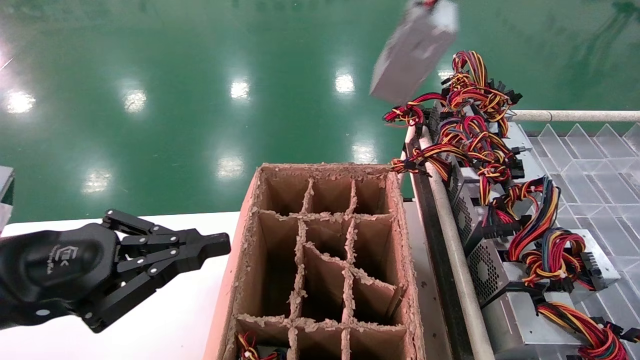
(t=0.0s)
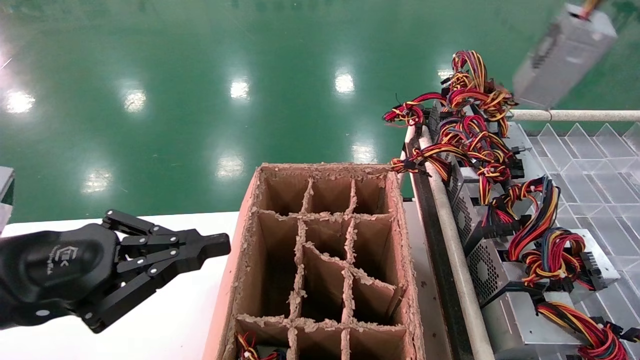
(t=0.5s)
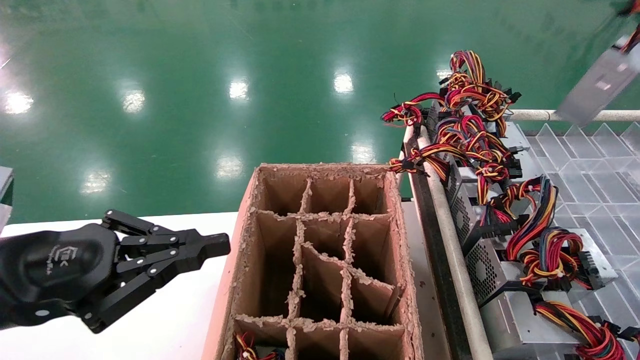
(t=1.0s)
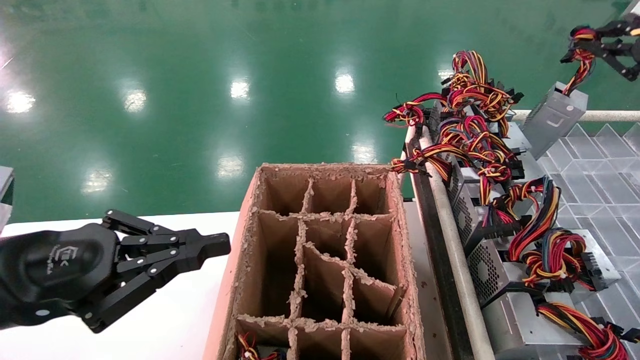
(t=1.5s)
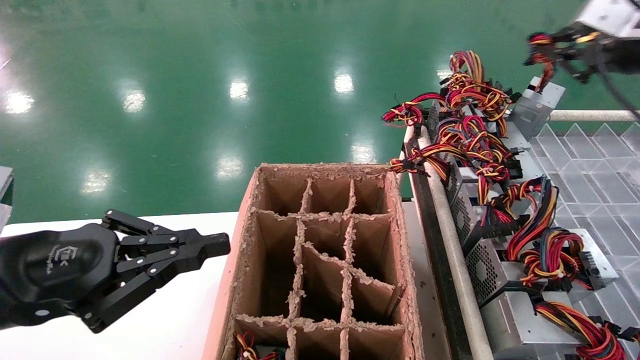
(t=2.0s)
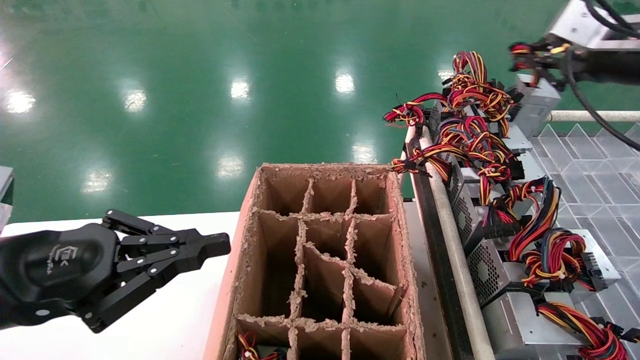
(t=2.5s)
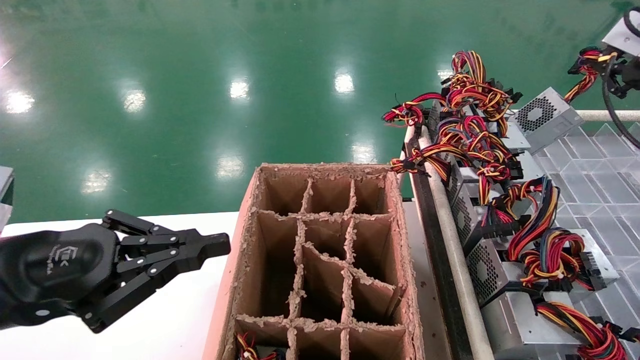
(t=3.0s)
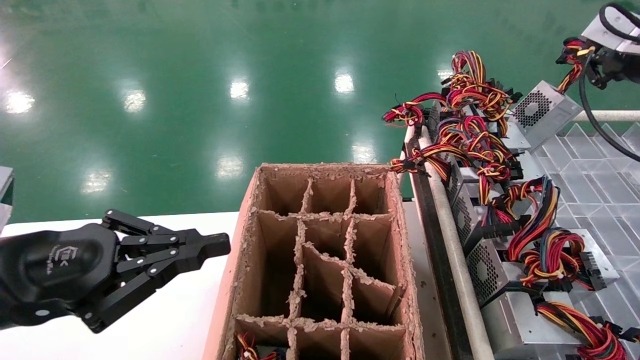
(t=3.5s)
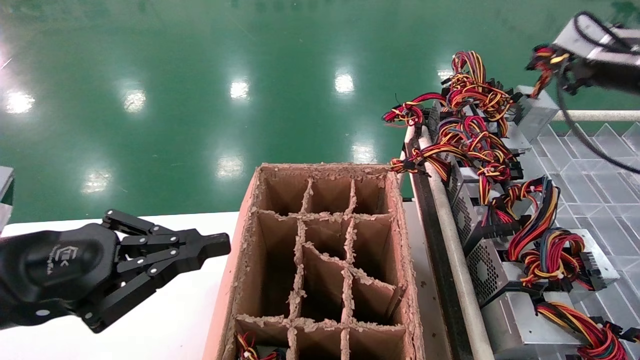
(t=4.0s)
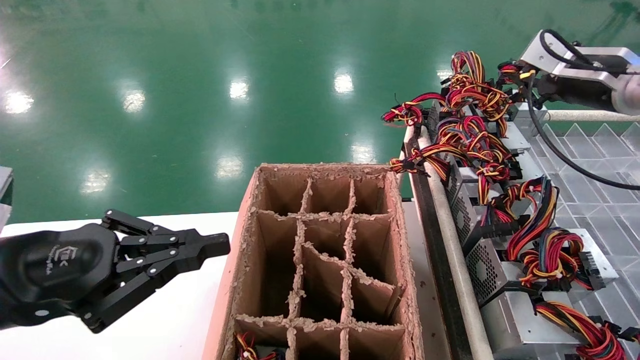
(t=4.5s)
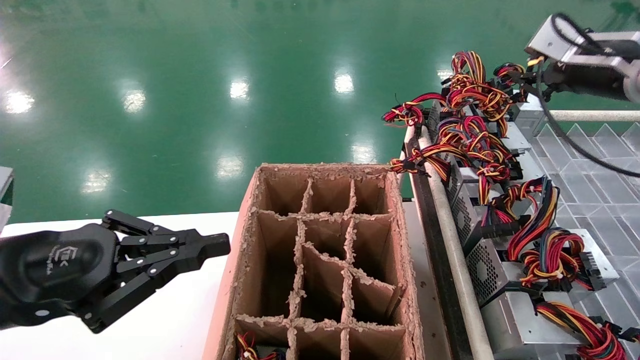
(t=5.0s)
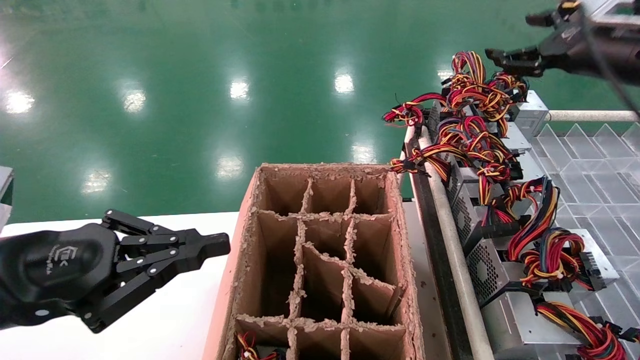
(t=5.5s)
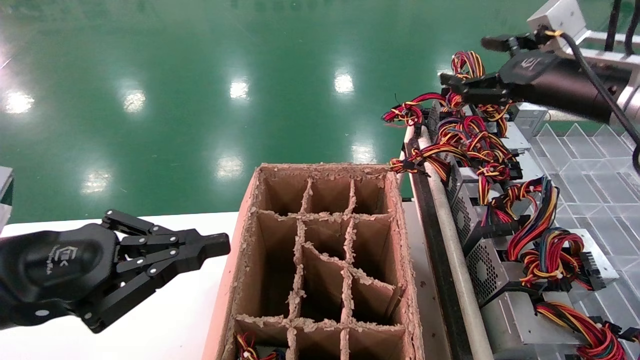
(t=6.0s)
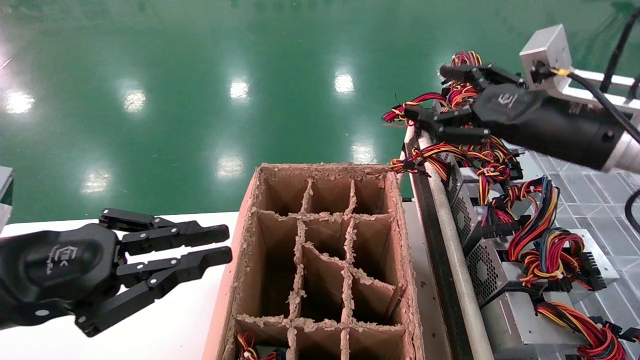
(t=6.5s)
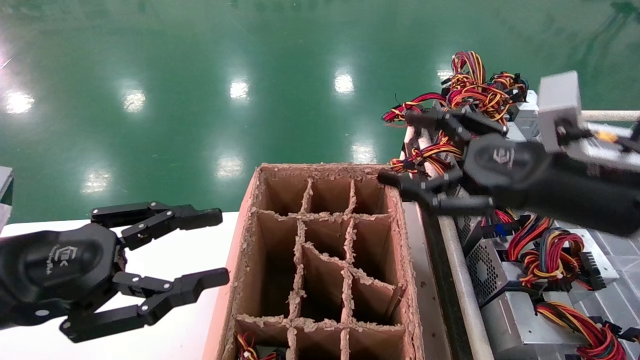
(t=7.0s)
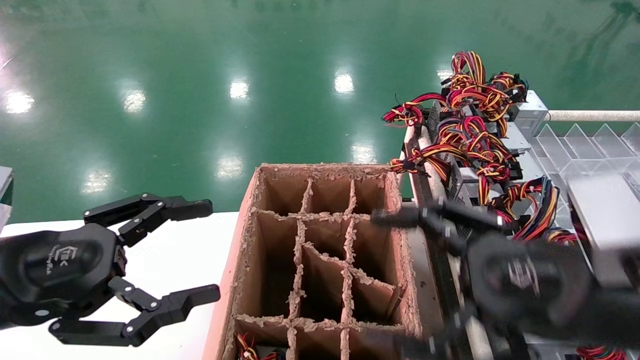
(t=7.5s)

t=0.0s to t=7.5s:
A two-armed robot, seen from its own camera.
Step, t=0.0s to t=5.0s: Place the main unit power supply in the designated area.
t=0.0s to t=2.0s: The right gripper travels forward, to the right and downward by some 20 cm.
t=2.0s to t=4.0s: The grippers make only small movements.
t=4.0s to t=5.5s: The right gripper opens.
t=5.5s to t=7.5s: The left gripper opens its fingers, while the right gripper shifts some 30 cm backward, downward and to the left, and opens its fingers.
